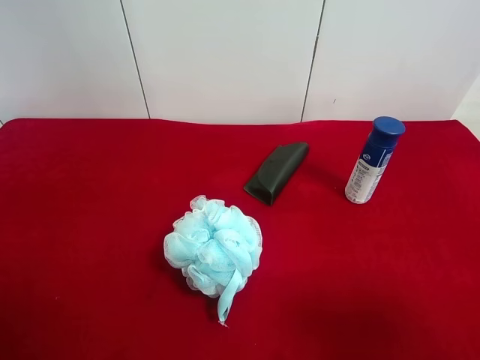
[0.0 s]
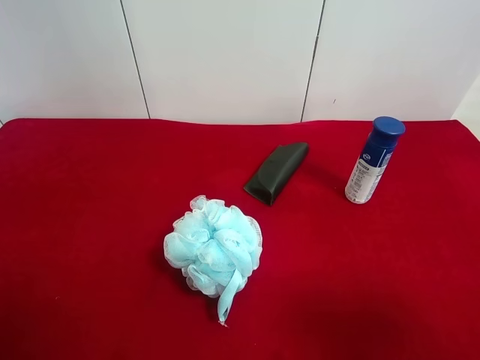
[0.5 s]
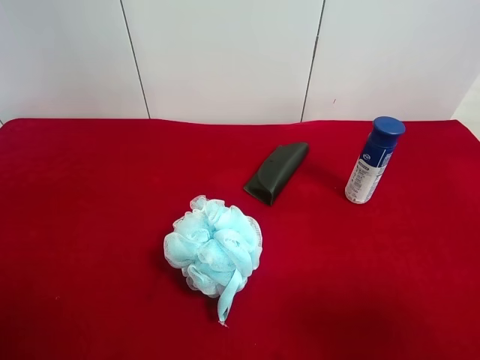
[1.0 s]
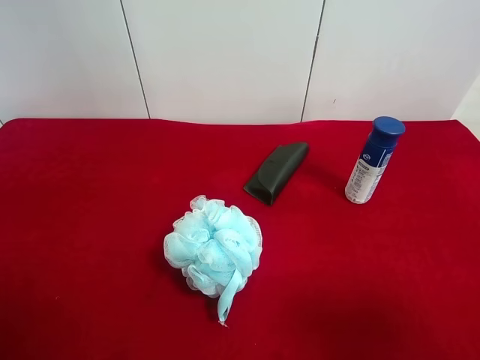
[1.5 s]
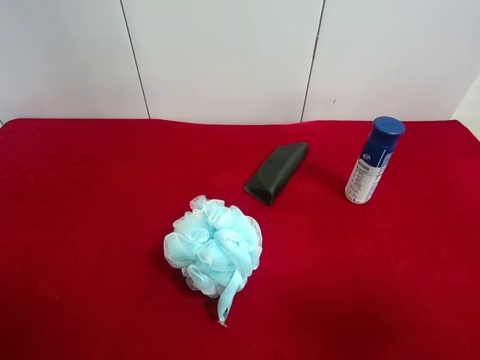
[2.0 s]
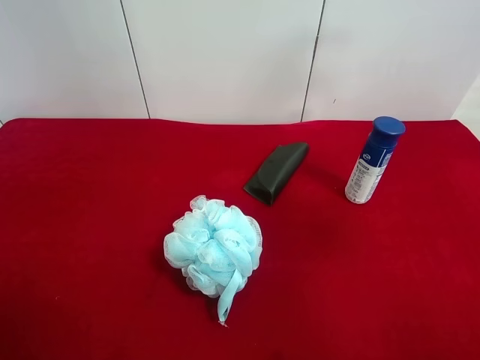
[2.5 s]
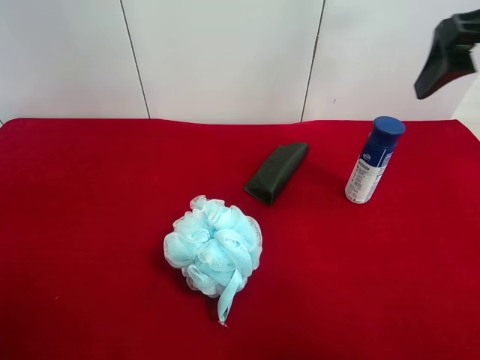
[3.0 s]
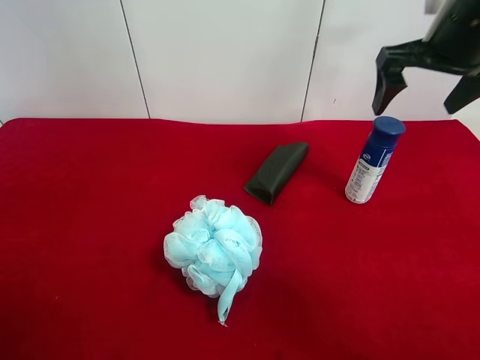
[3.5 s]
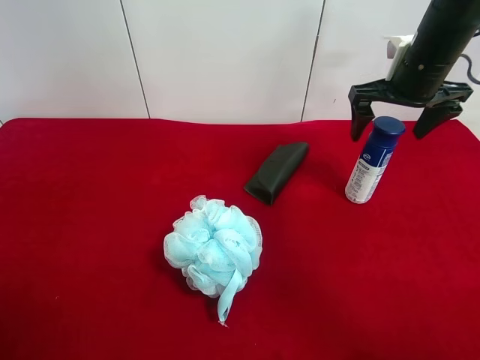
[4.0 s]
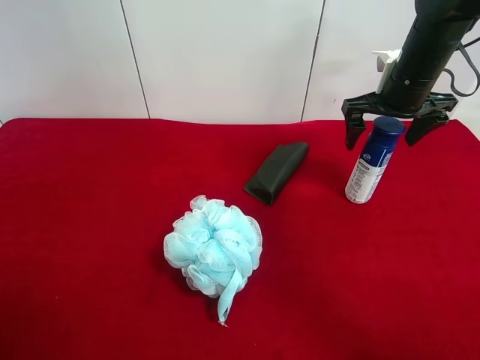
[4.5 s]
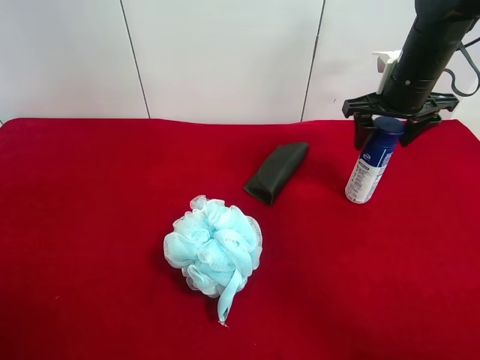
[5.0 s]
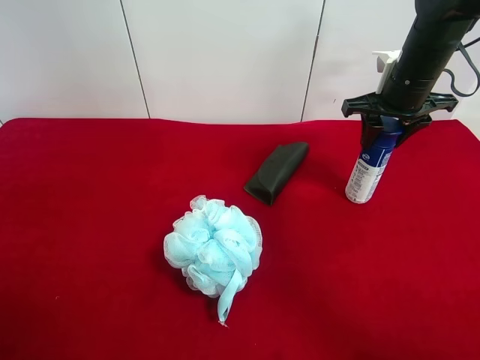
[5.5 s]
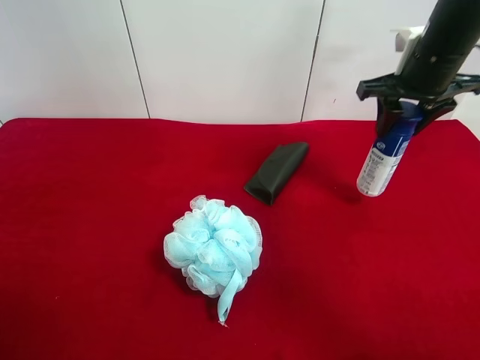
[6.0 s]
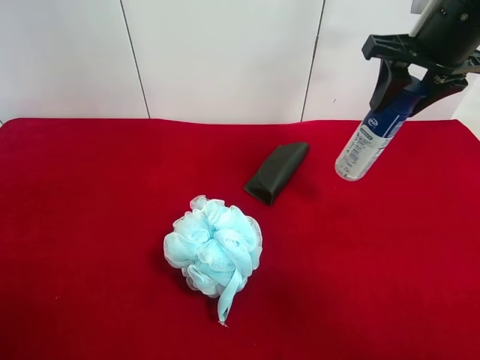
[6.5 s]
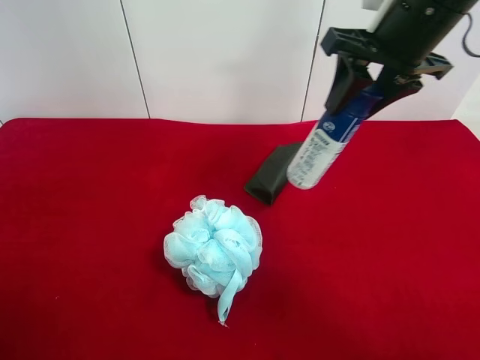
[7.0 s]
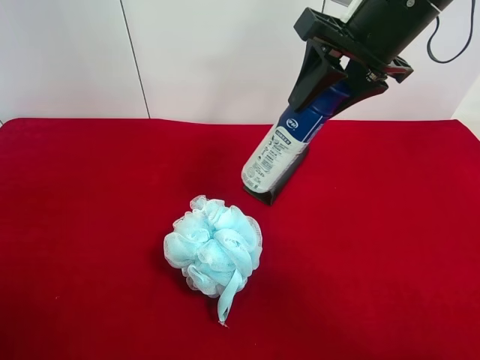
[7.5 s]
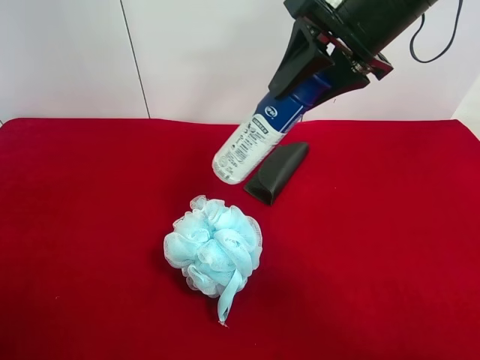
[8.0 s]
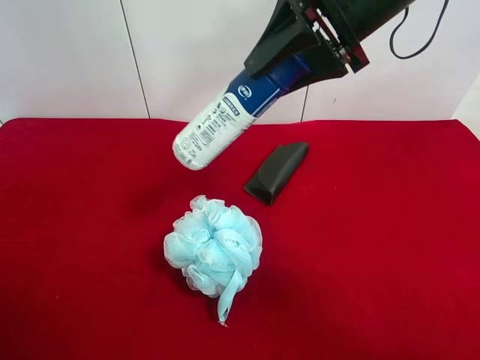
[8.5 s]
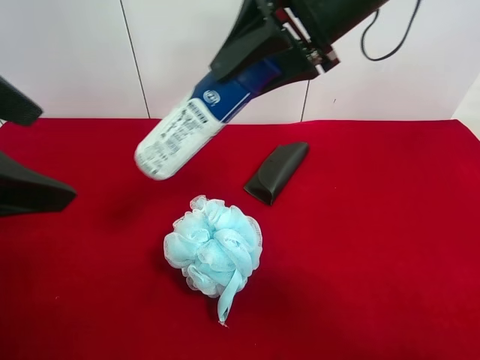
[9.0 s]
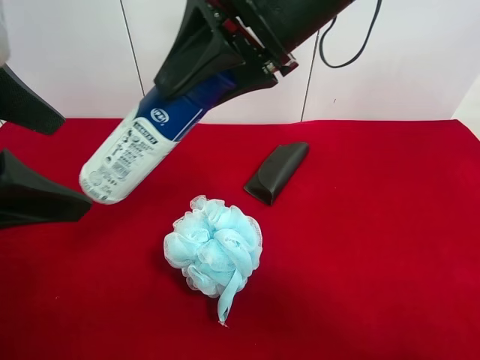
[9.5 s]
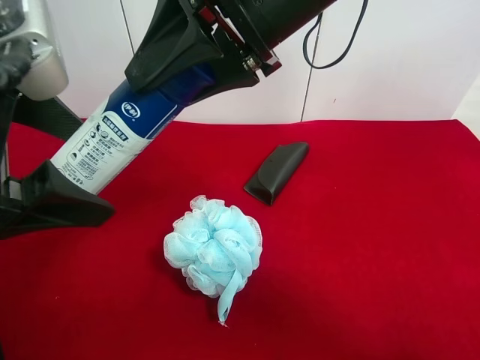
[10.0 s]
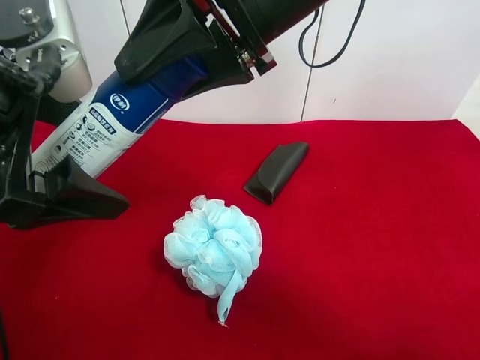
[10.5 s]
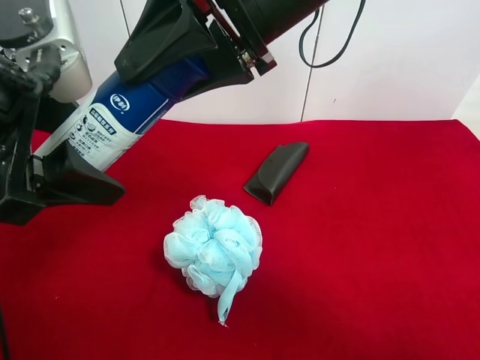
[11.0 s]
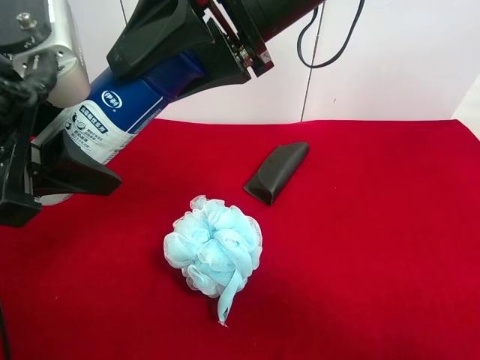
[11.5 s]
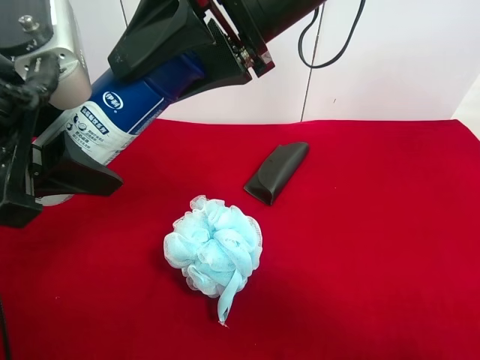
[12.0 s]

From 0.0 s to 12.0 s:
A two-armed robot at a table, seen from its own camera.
Task of the whole recording: use the right gripper to pick up the item and transfer it from the right gripper to the left gripper.
Step, from 0.0 s to 5.0 s: Use the right gripper to grab the yogurt on the right side of the table.
From 2.0 s to 4.0 s: The right gripper goes about 35 cm forward.
From 4.0 s to 6.0 s: The right gripper closes.
From 6.0 s to 8.0 s: The left gripper ends up roughly 5 cm from where it was. The right gripper shifts some 15 cm to the left, upward and backward.
From 8.0 s to 10.0 s: The right gripper is displaced to the left and backward by approximately 10 cm; the left gripper heads to the right and forward, covering roughly 15 cm.
From 10.0 s to 12.0 s: The left gripper closes up.

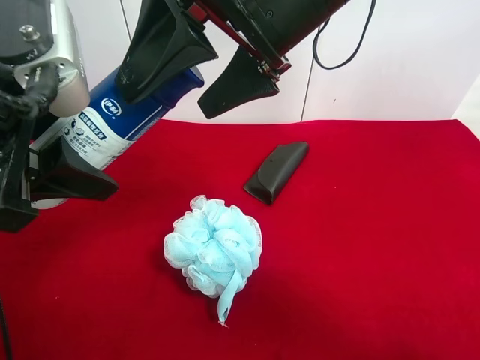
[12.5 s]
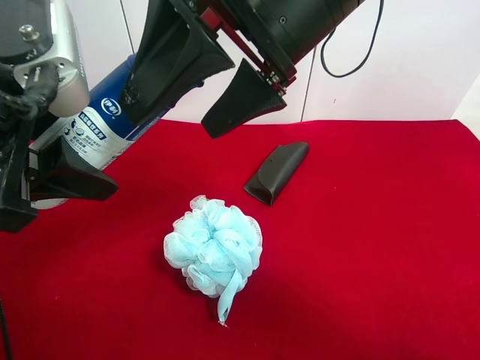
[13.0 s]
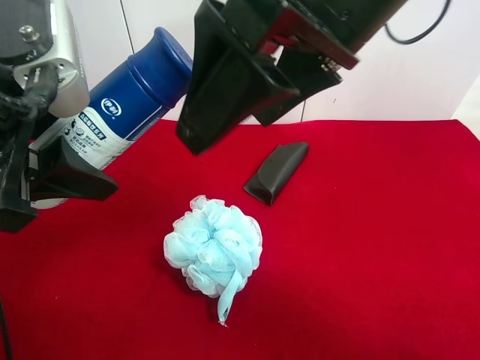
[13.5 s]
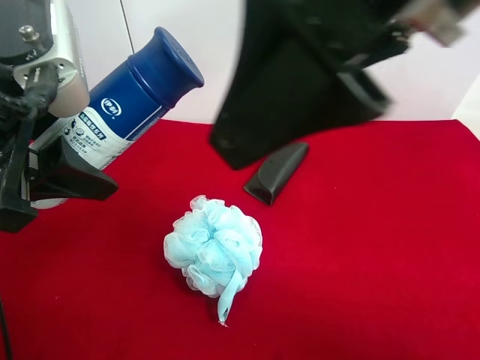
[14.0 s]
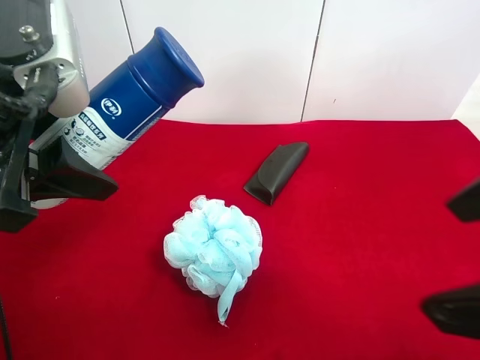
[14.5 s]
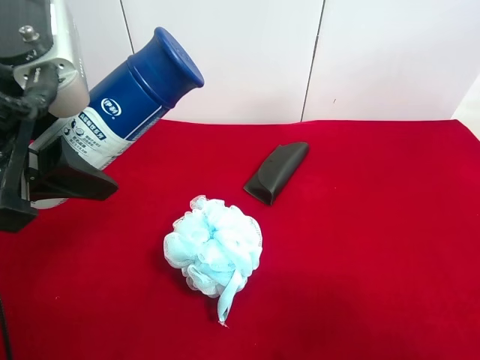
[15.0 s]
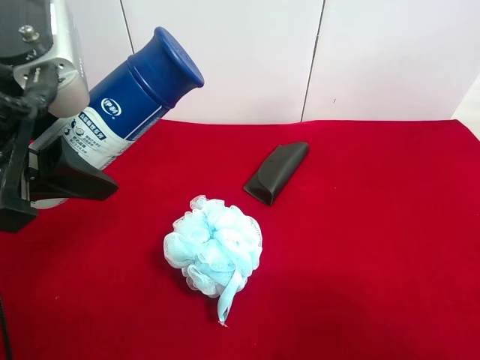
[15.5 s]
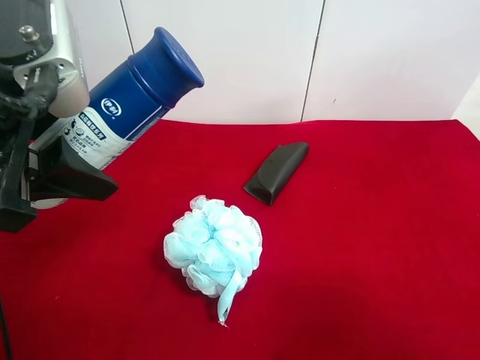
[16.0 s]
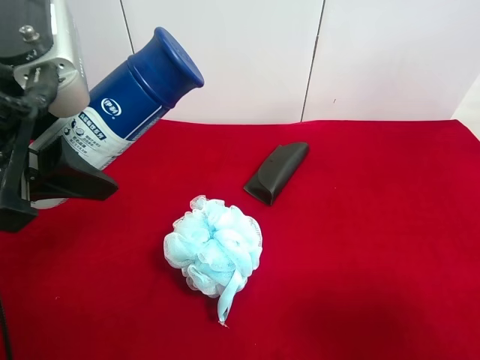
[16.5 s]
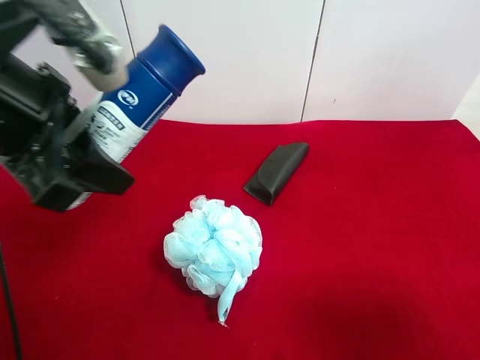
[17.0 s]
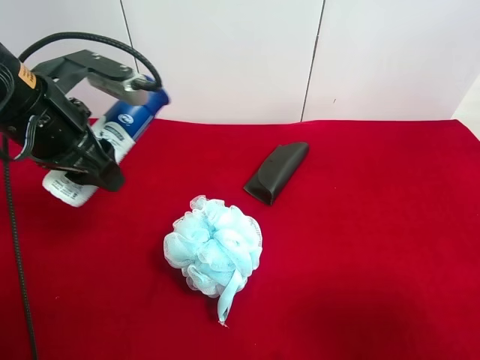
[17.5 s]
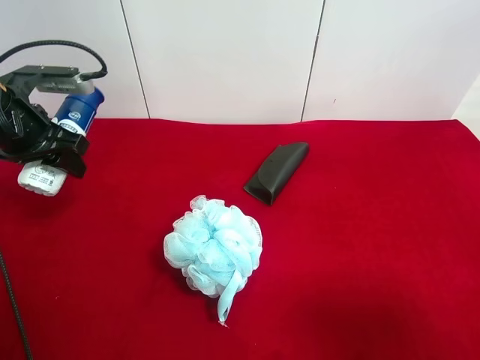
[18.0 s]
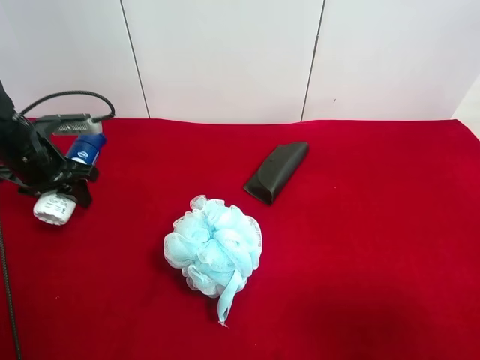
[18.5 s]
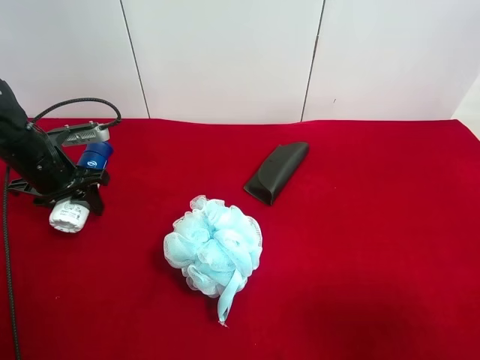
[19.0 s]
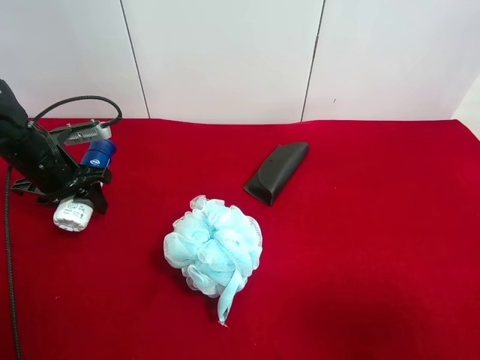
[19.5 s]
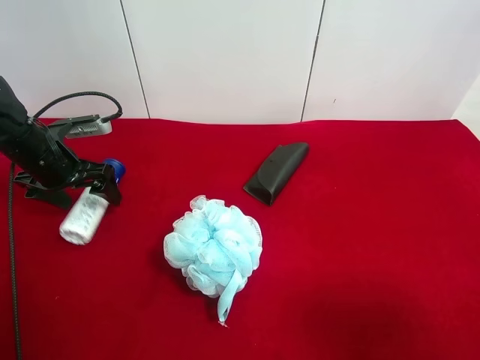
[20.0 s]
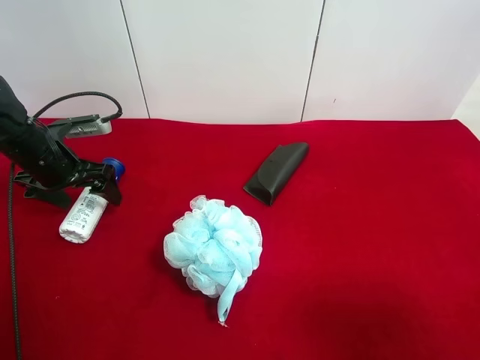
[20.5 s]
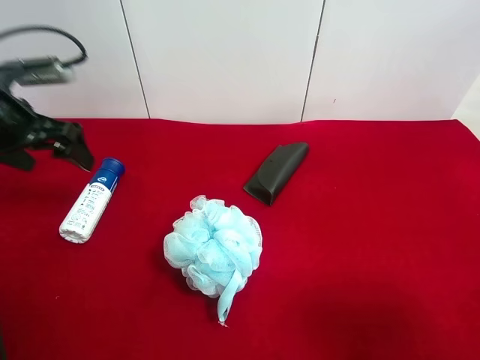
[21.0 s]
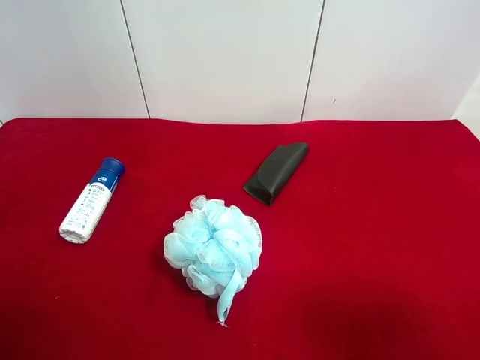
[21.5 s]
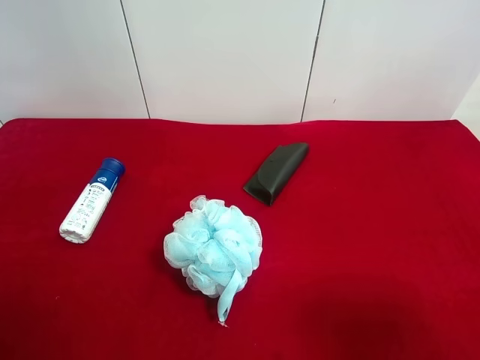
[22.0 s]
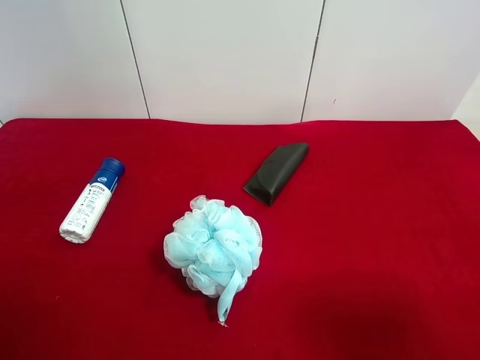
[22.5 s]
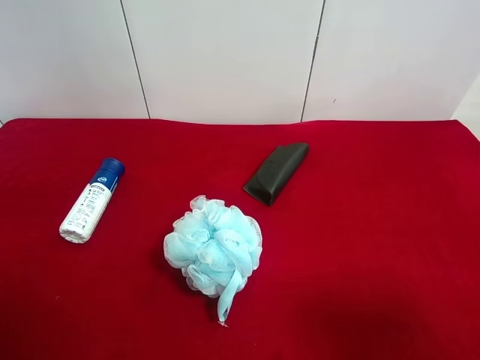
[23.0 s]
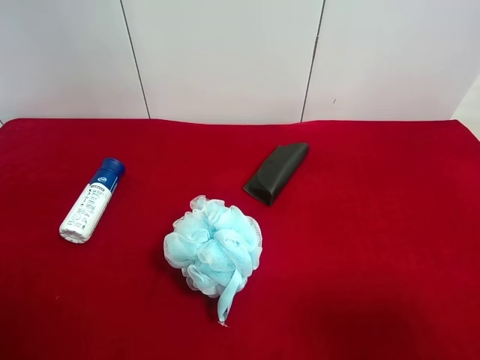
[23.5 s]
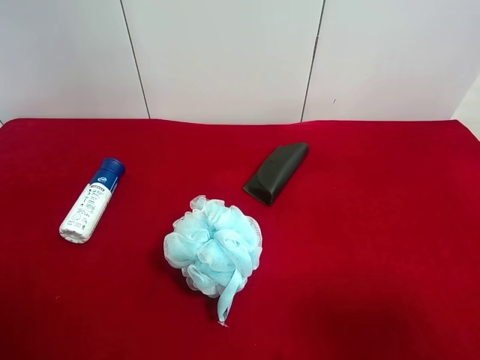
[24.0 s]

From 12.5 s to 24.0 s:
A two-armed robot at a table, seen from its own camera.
Task of the whole recording: use the right gripper to pick up the item and transfer it from the right gripper to the left gripper.
Step, from 14.0 s to 21.0 s: The left gripper places yogurt on the left side of the table.
From 12.5 s to 14.5 s: The right gripper travels backward and to the right by approximately 25 cm.
From 14.5 s to 16.5 s: The right gripper is displaced to the right, backward and downward by about 15 cm.
From 16.5 s to 18.5 s: The left gripper travels downward, forward and to the left by about 30 cm.
From 18.5 s to 20.0 s: The left gripper opens up.
From 20.0 s to 22.0 s: The left gripper travels backward and upward by roughly 35 cm.
